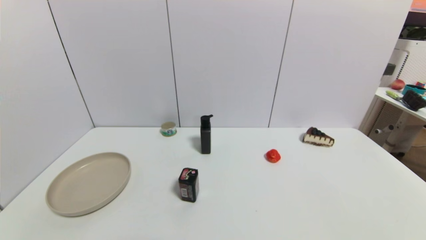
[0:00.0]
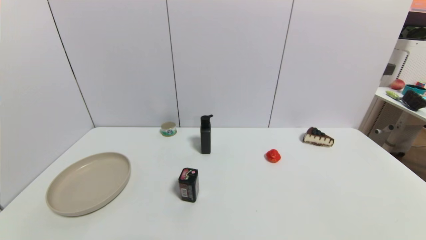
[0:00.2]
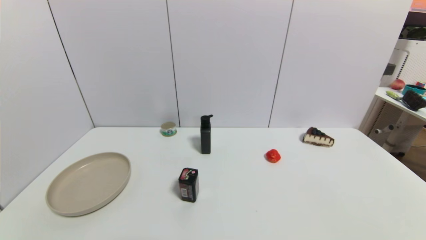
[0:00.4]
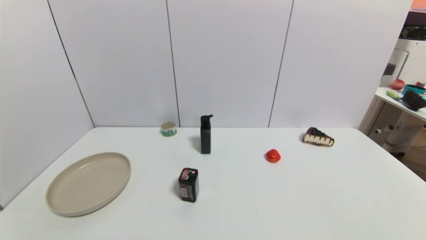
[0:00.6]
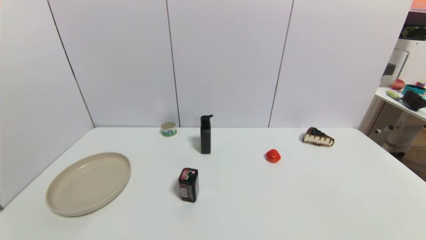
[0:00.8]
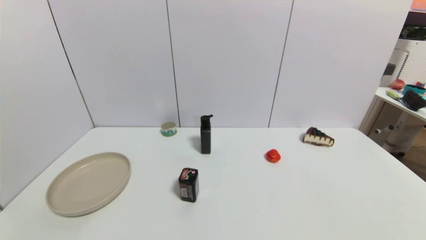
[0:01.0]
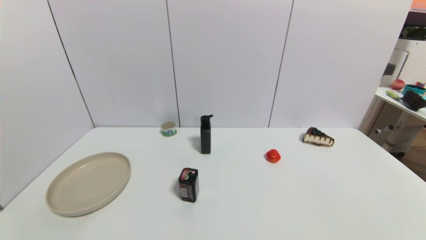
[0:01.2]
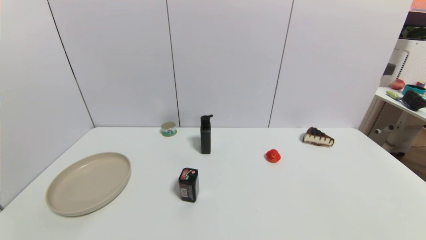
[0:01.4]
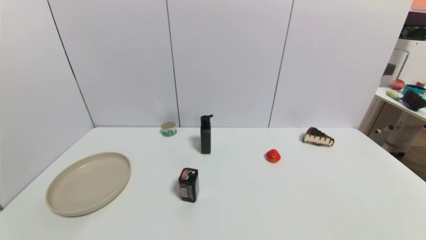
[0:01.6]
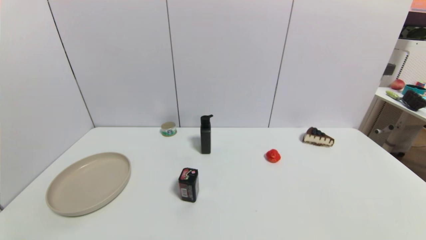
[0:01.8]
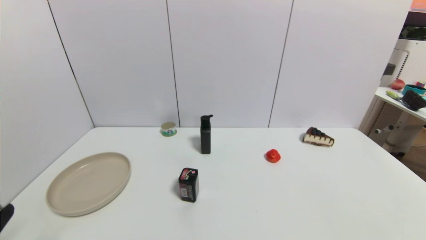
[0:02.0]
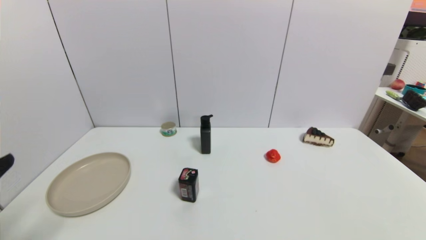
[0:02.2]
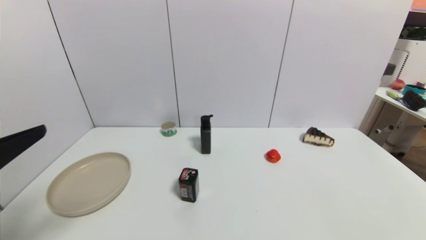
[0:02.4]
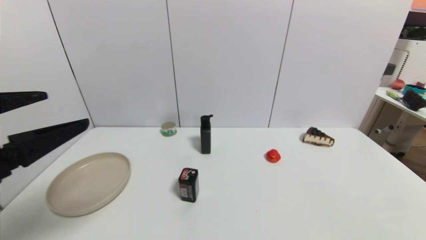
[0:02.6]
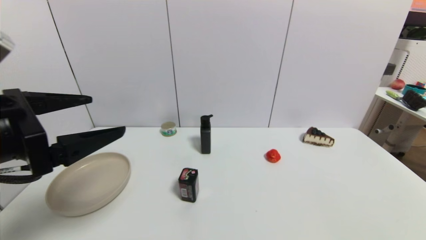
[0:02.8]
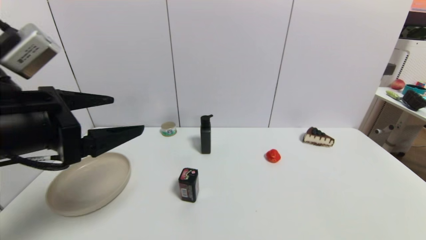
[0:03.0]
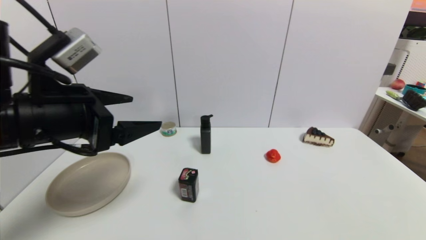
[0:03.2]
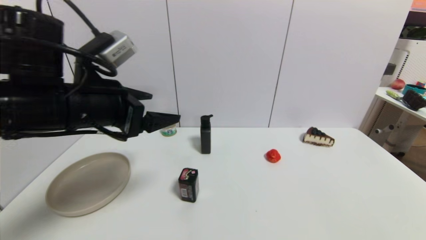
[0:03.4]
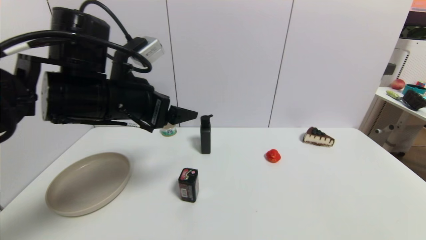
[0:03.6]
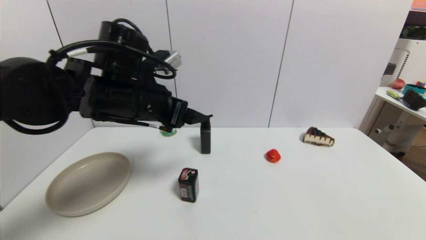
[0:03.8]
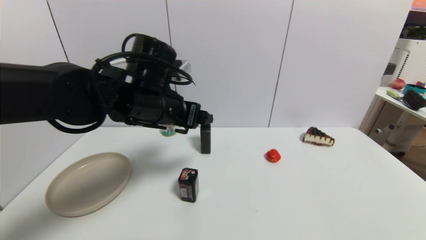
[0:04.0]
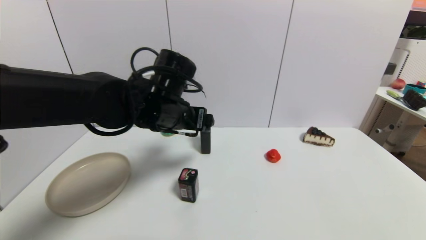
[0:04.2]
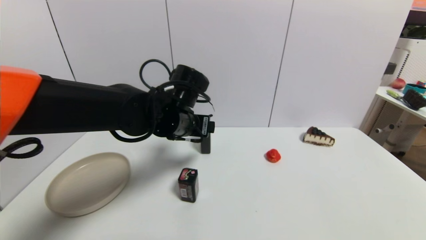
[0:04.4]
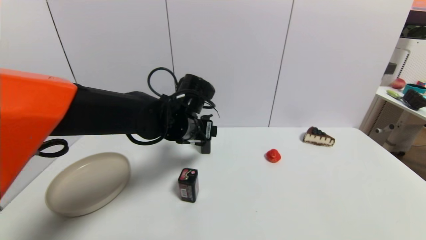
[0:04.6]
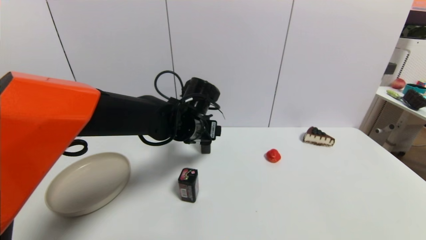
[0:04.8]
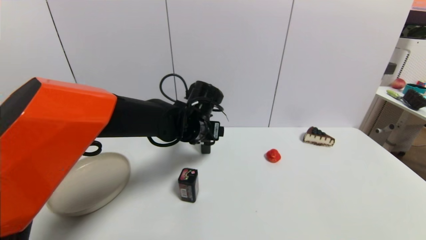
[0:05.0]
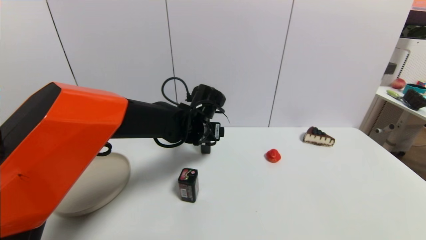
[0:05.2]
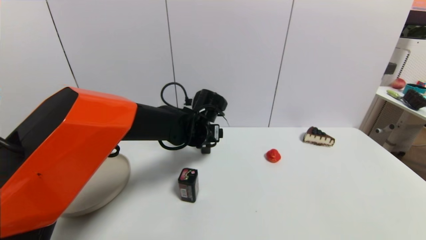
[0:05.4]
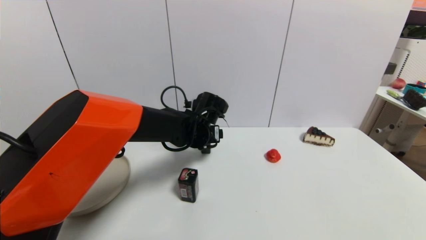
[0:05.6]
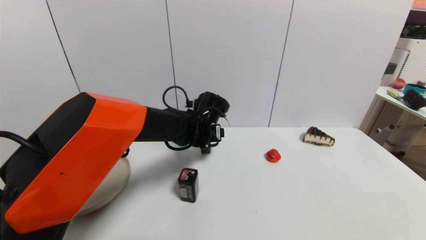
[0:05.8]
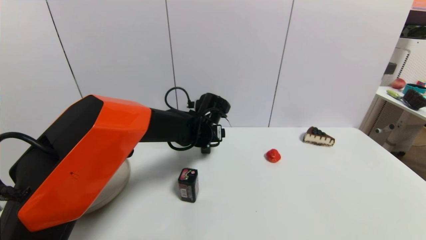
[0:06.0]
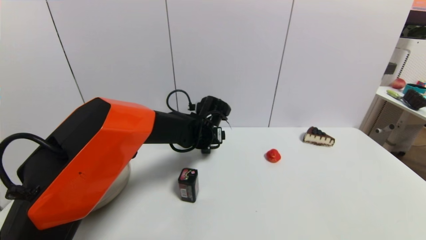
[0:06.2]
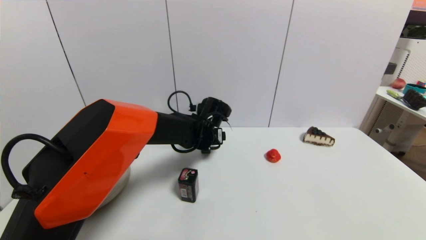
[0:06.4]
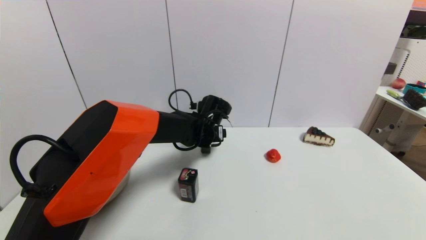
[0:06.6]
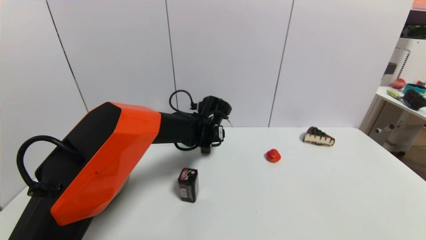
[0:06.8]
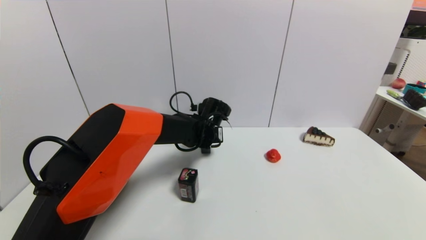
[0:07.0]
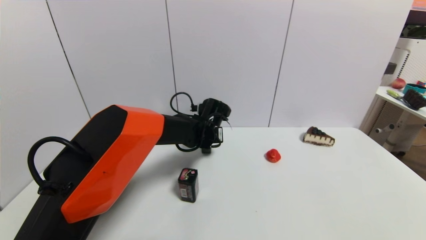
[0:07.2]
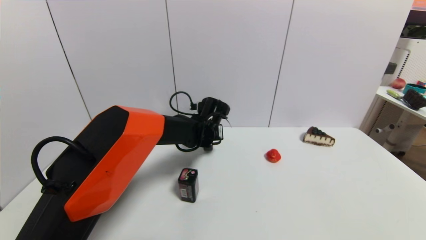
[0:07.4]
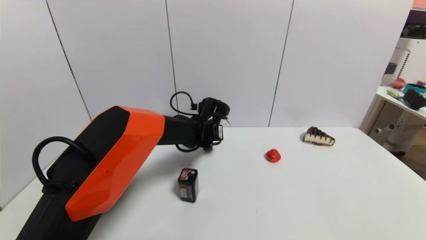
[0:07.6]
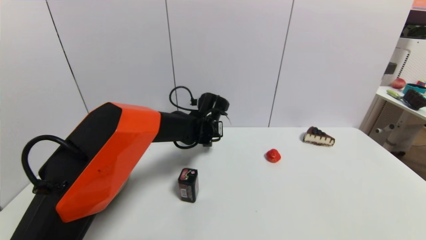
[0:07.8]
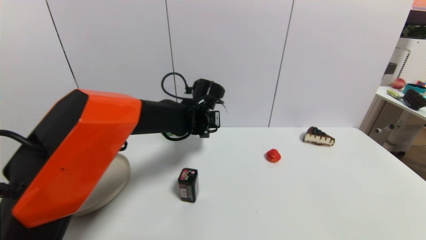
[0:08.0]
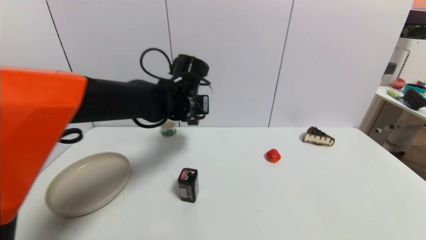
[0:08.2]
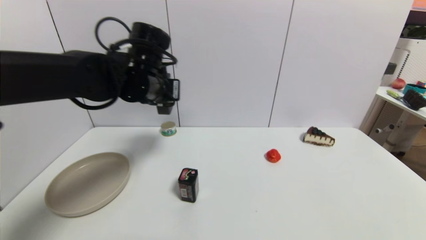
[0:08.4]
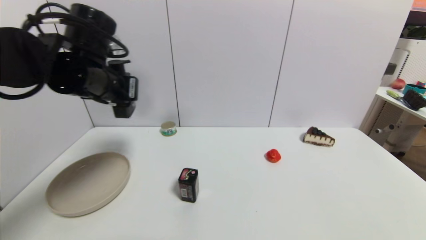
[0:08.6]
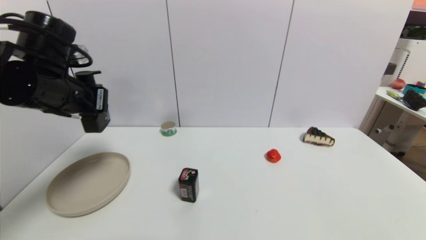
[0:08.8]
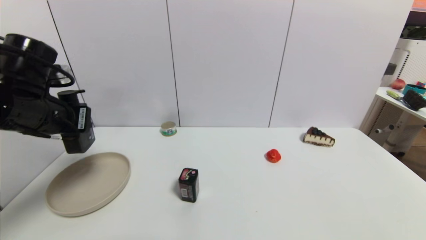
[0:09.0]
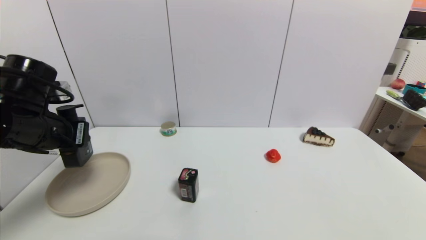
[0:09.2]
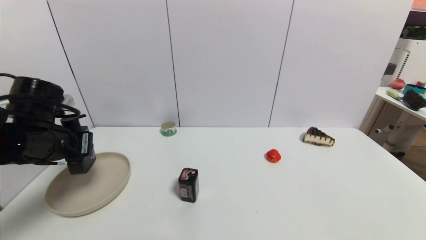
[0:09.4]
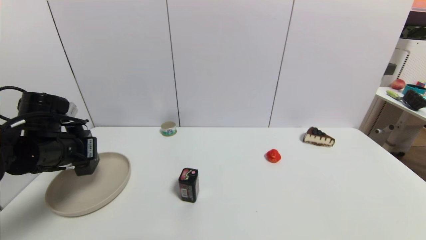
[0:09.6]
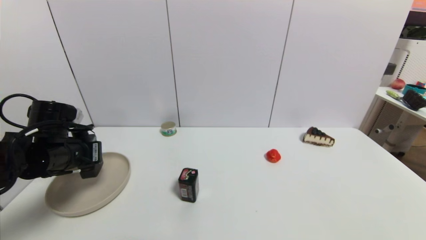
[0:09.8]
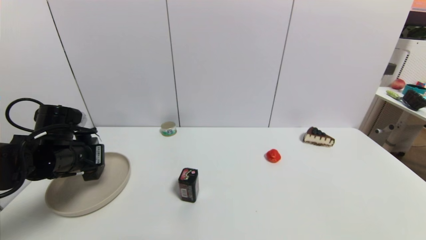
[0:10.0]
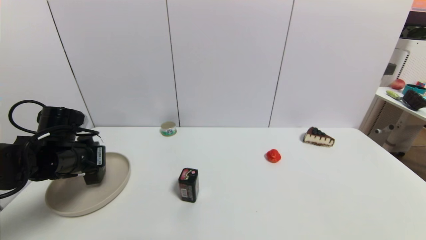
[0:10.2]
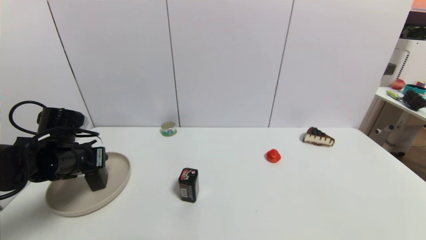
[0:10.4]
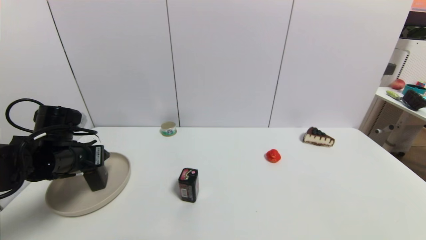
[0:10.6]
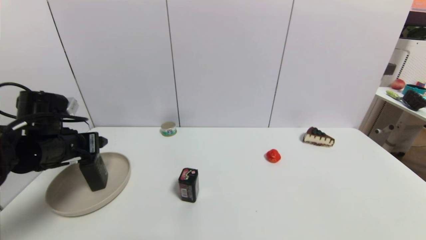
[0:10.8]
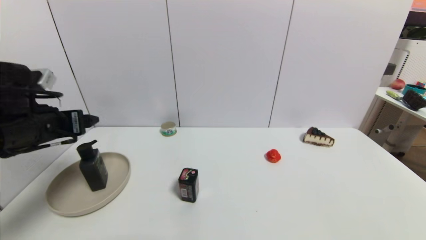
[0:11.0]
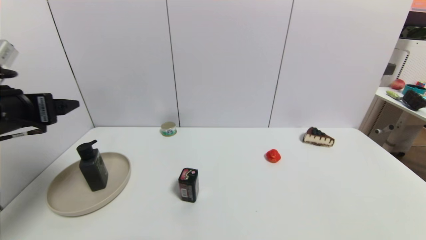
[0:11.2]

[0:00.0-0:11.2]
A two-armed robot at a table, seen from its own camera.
Task of the whole recording: use a gripper to pick the target object and place on the brown plate.
Step, 0:00.0 to 0:07.4: Grasp the hard facial cleanser with the left gripper.
Step, 0:07.6 to 0:10.6: Place the hard facial cleanser on the brown plate with the left gripper.
0:01.6 to 0:03.2: The left gripper travels forward, upward and to the right by roughly 30 cm.
0:03.2 to 0:04.8: The left gripper heads to the right, forward and downward, covering some 25 cm.
0:04.8 to 0:06.4: The left gripper is displaced downward by some 5 cm.
0:06.4 to 0:08.0: The left gripper heads upward, covering about 5 cm, and closes.
0:08.0 to 0:09.6: The left gripper is displaced to the left and backward by some 30 cm.
0:09.6 to 0:11.2: The left gripper goes approximately 15 cm upward and backward, and opens up.

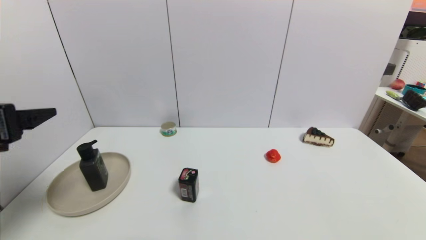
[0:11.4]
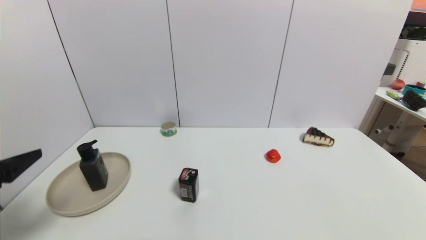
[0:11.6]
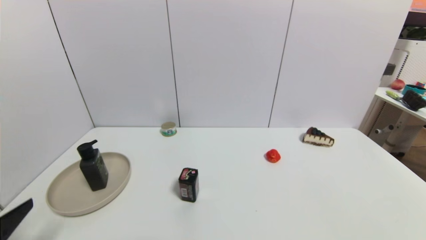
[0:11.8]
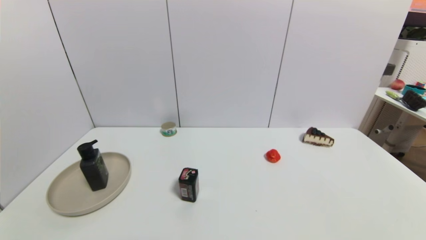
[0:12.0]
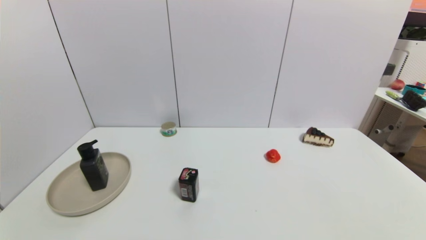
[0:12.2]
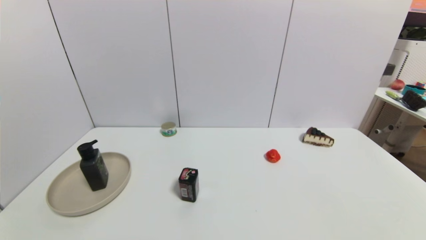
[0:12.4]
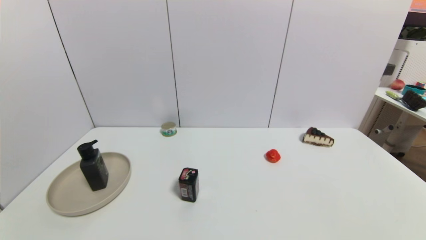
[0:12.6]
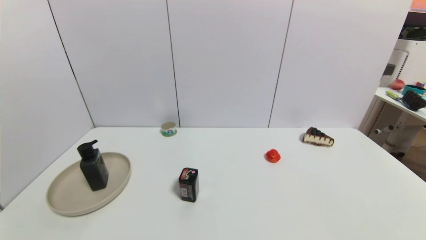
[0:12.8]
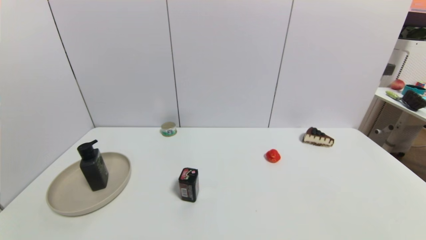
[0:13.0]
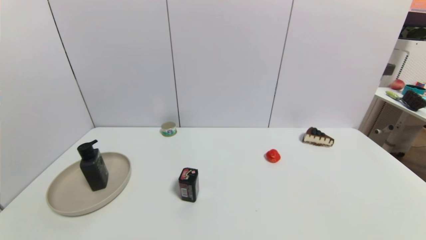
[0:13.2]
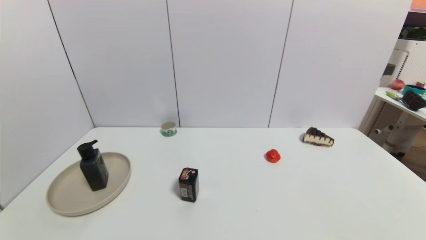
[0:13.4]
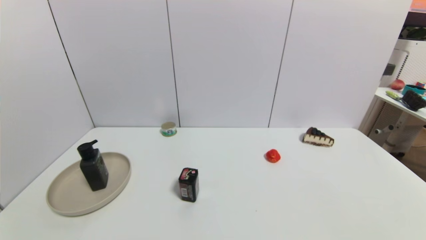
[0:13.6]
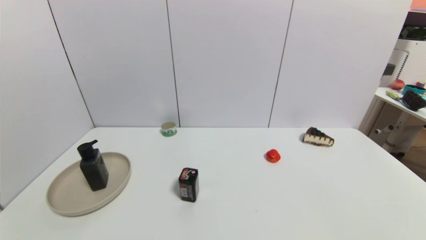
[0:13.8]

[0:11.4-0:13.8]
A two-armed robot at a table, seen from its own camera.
Task of the whole recording: use a gripper to pick the target object and place on the brown plate.
0:11.4 to 0:12.6: The left gripper is displaced downward and backward by approximately 25 cm.
0:12.6 to 0:13.8: The two grippers keep their place.

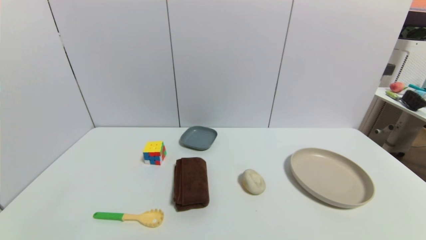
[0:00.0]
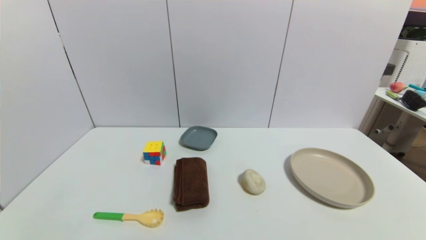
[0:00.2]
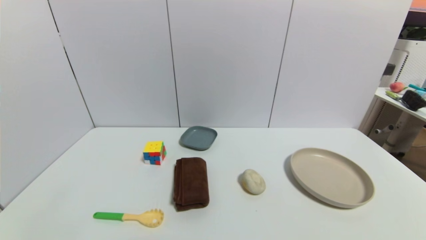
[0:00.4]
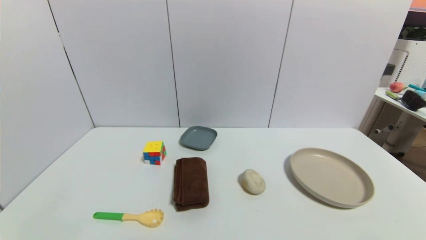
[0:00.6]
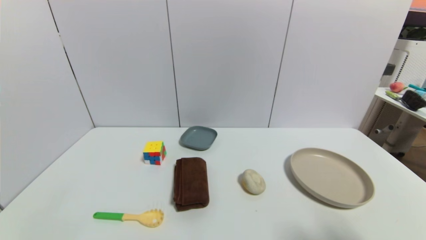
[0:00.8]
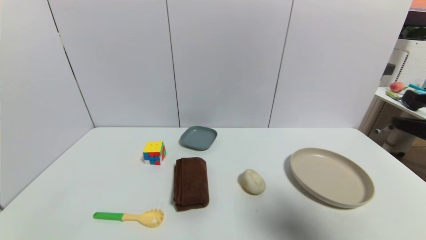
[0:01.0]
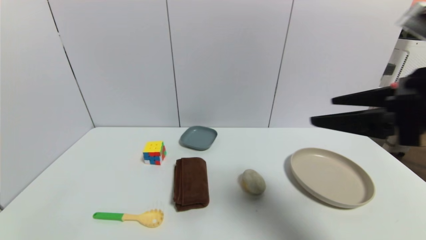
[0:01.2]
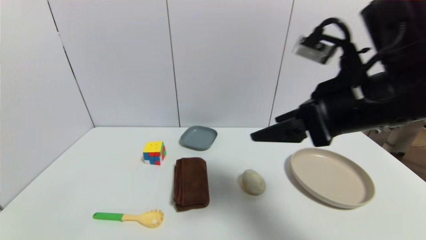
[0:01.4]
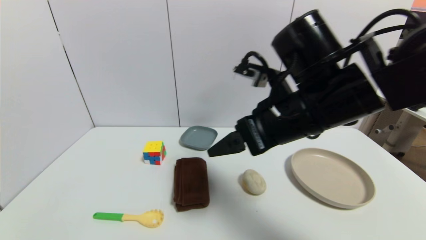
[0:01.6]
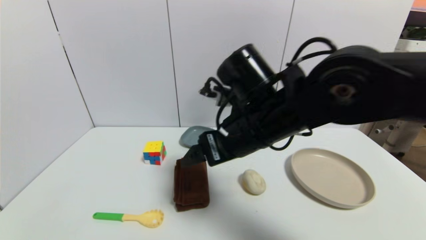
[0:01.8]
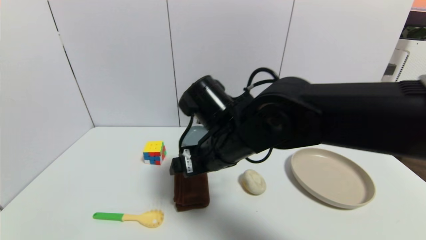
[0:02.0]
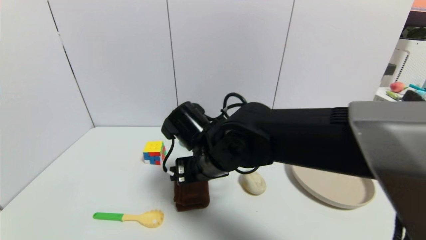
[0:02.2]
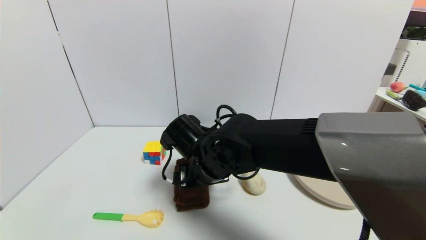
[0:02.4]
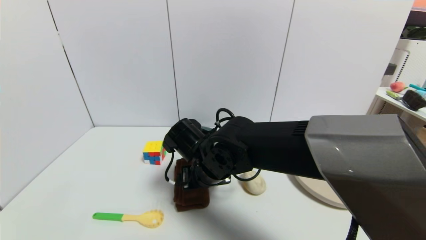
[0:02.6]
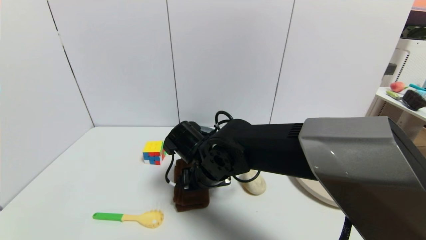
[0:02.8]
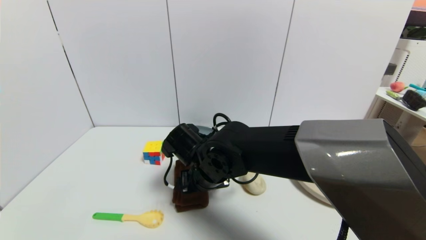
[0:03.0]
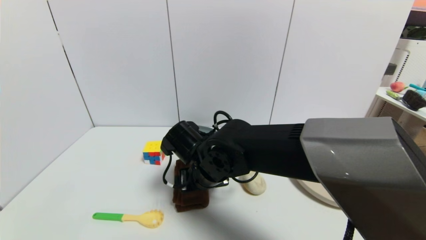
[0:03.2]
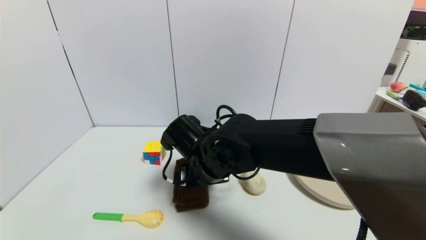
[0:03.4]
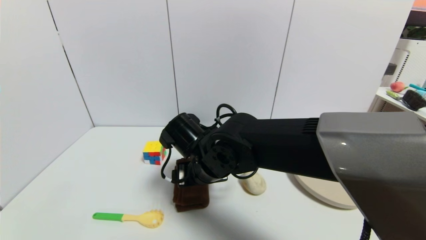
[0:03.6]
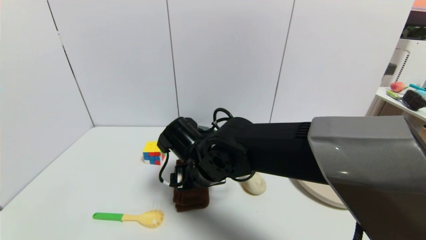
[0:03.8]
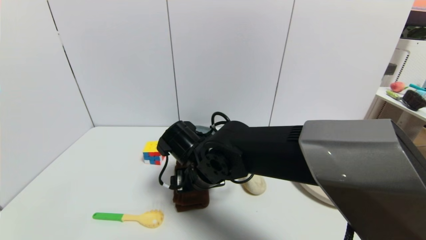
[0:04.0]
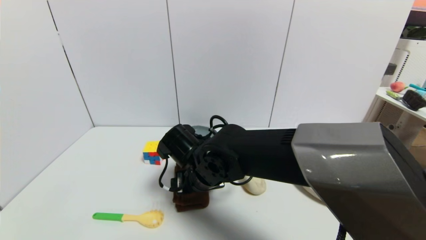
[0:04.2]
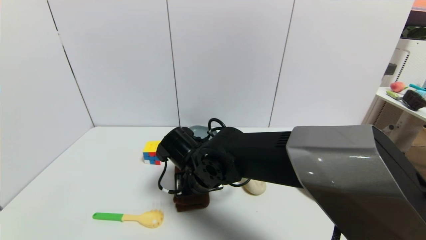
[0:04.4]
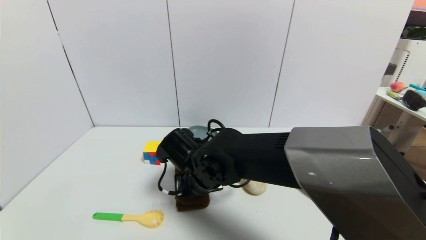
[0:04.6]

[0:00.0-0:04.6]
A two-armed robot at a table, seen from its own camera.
Task of the whole recording: use a gripper to pick the target object and place on the brown plate.
0:00.0 to 0:01.6: The right gripper heads forward, to the left and upward, covering approximately 40 cm.
0:01.6 to 0:03.0: The right gripper travels downward and to the left by some 20 cm.
0:03.0 to 0:04.6: The right gripper closes.
